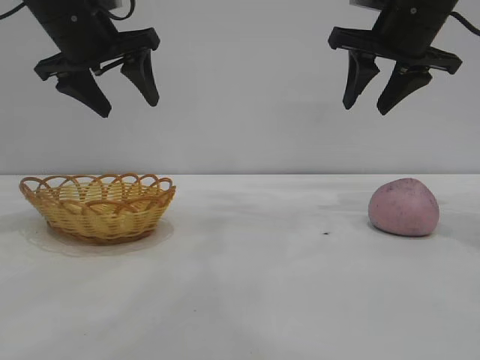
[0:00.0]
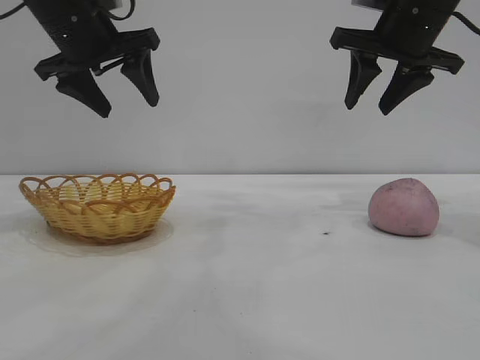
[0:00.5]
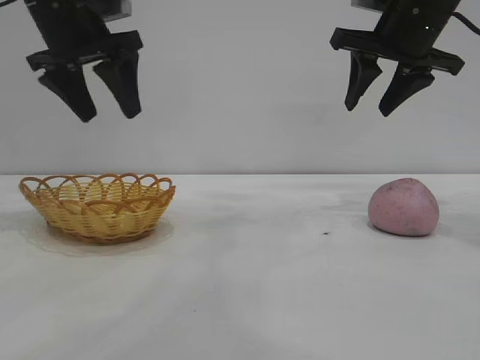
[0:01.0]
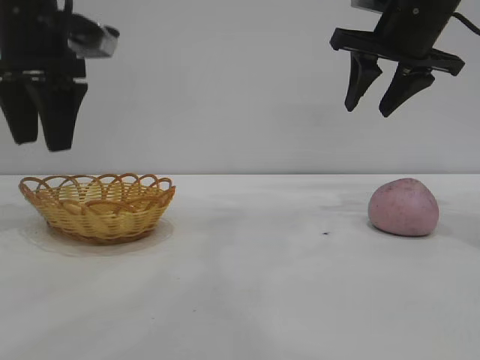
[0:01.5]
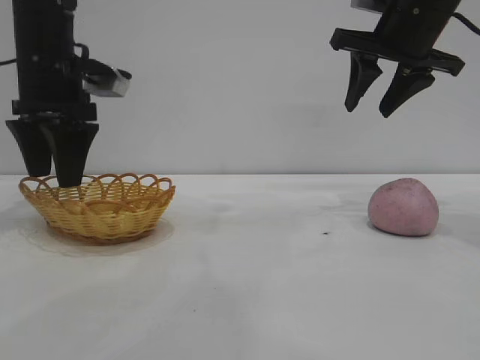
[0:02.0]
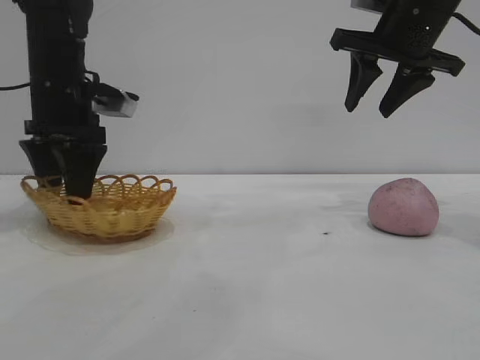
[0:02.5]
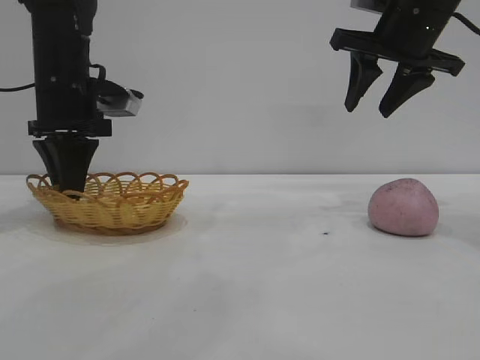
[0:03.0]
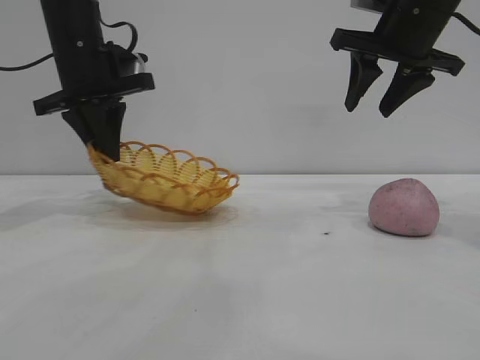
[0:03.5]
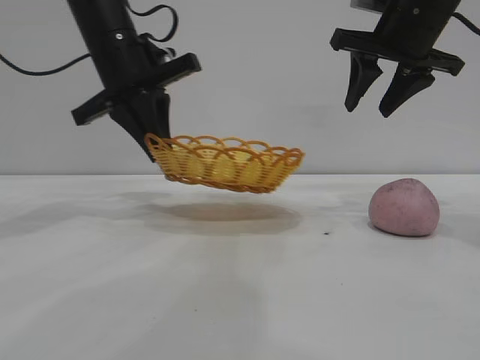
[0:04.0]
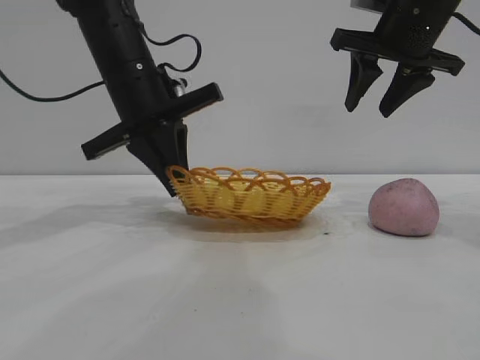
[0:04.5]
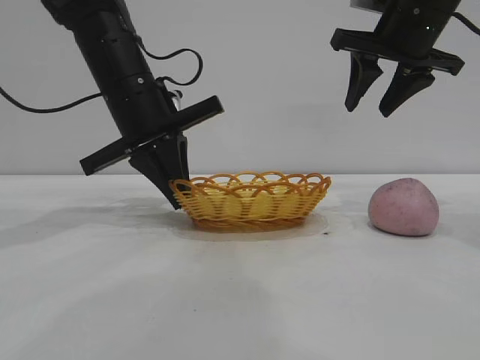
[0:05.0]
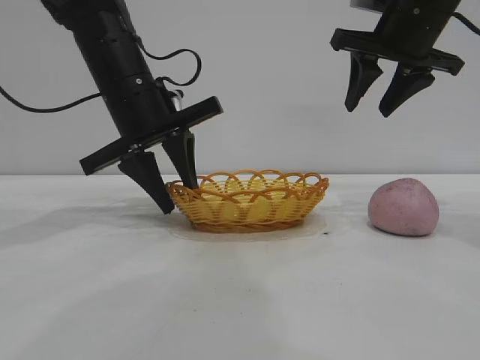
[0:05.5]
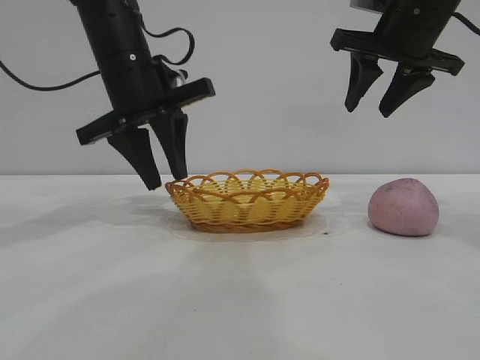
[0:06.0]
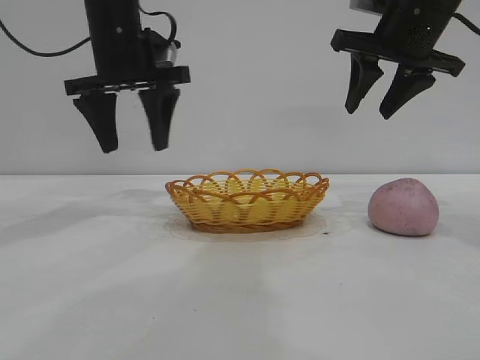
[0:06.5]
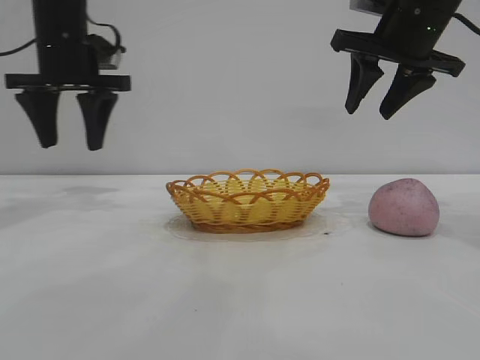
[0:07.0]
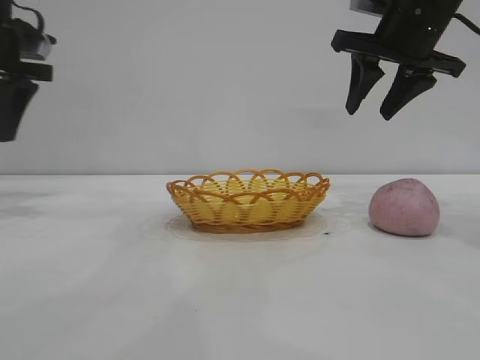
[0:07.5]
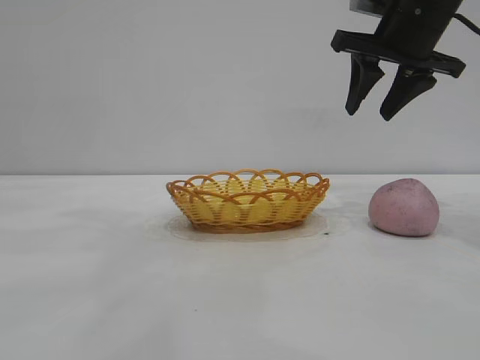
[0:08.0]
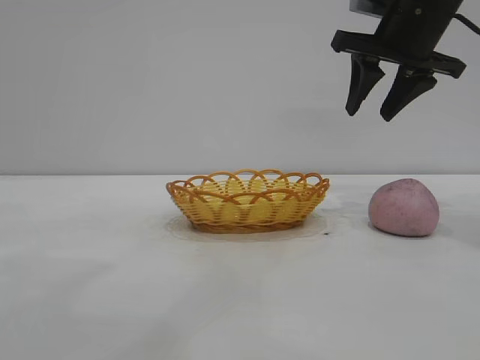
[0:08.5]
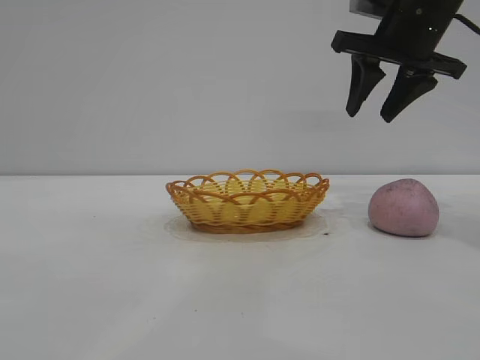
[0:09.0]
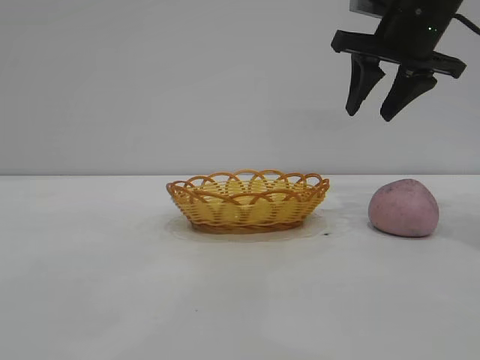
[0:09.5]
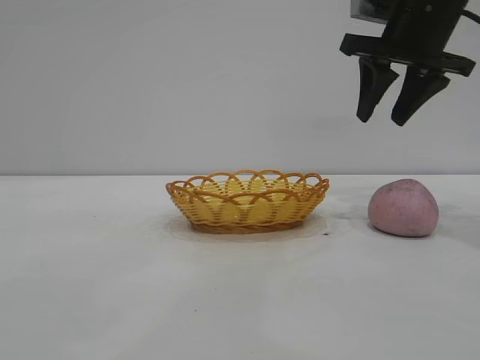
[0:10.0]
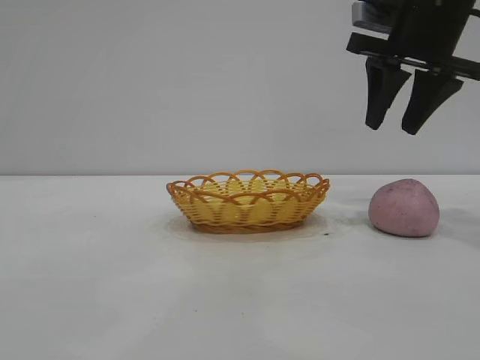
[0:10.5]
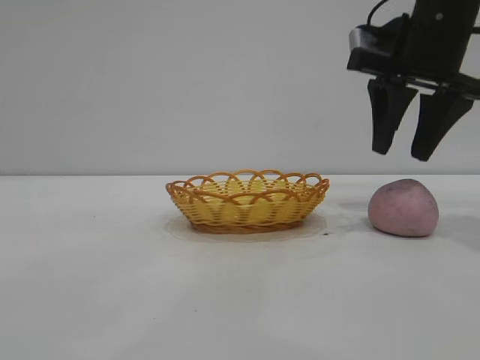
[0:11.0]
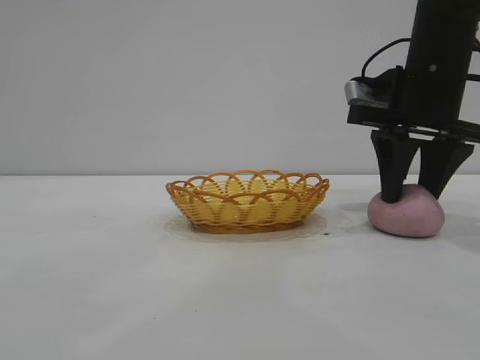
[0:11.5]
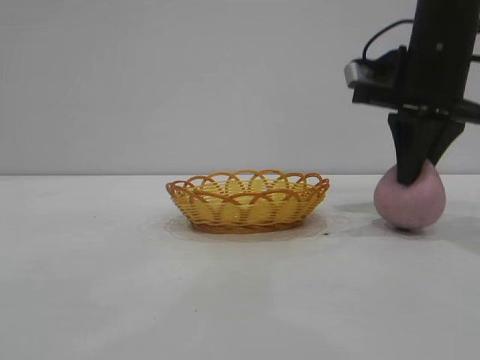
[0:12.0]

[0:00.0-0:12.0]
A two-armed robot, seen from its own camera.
Task of the whole recording: pick up the peach and put it into the basket.
Step, 0:00.0 to 0:06.5: Move the basket to the center of view.

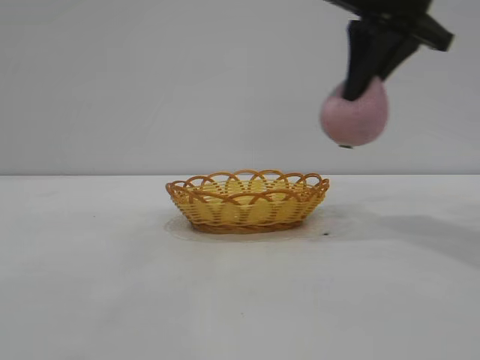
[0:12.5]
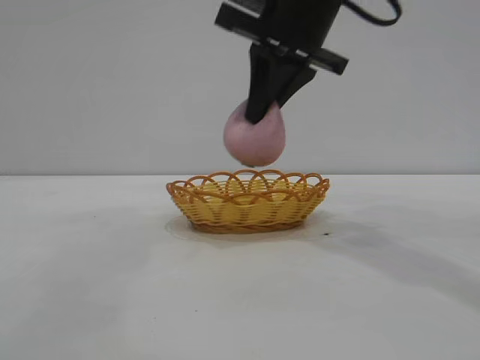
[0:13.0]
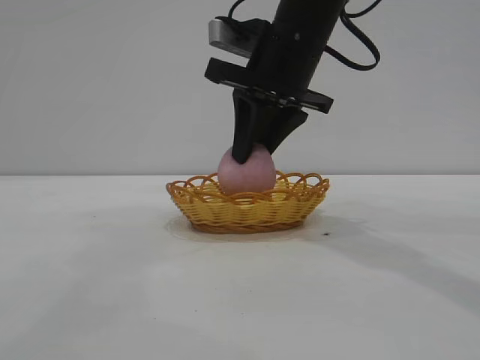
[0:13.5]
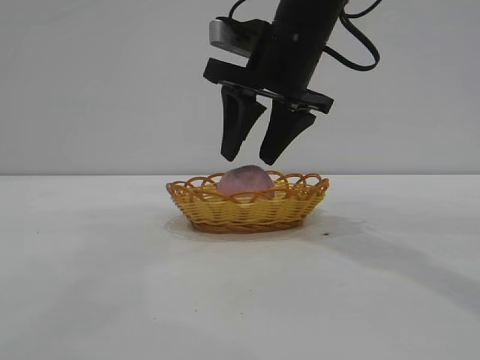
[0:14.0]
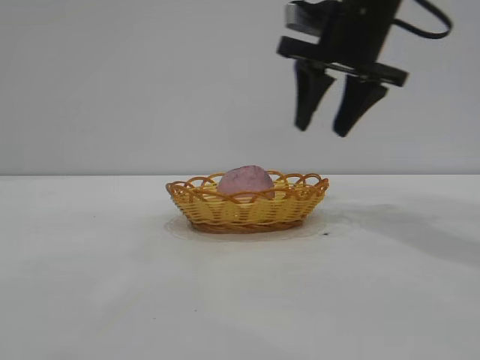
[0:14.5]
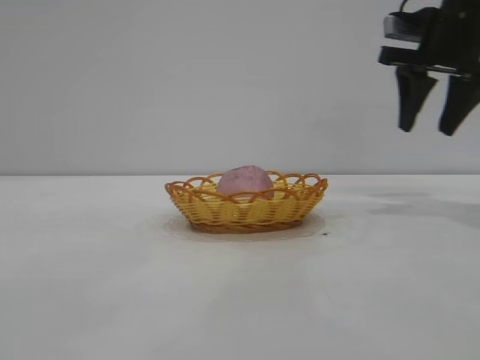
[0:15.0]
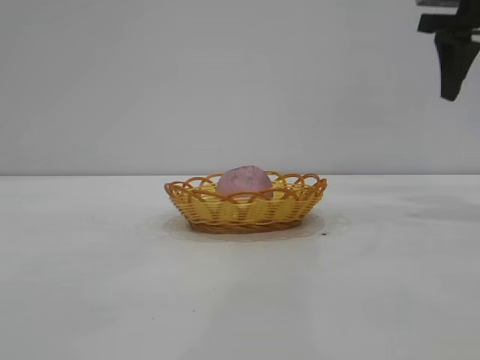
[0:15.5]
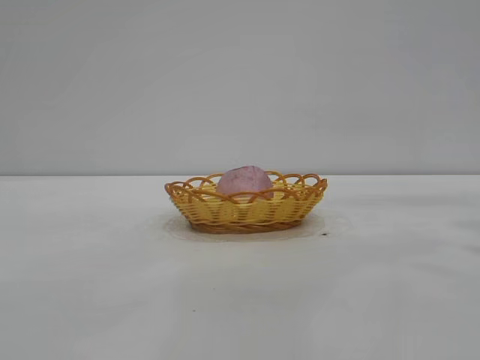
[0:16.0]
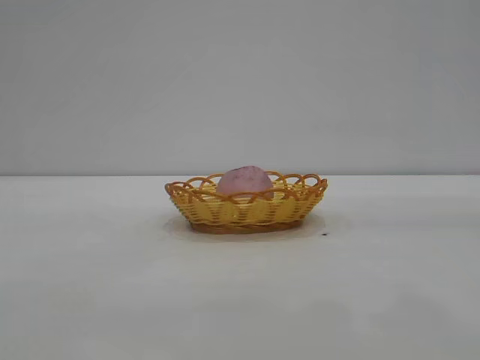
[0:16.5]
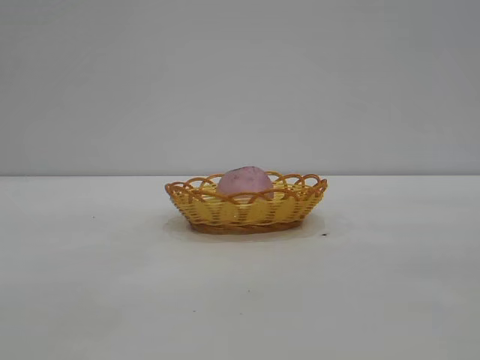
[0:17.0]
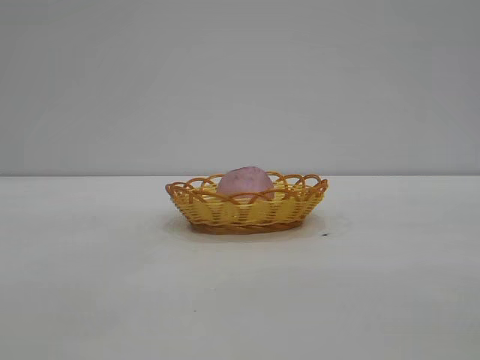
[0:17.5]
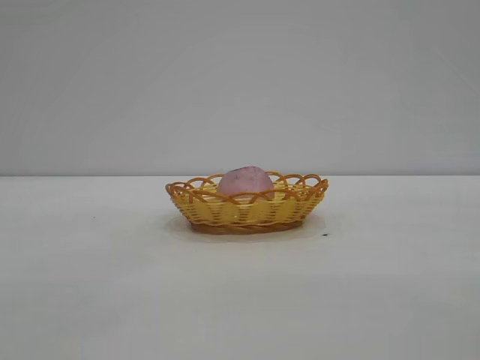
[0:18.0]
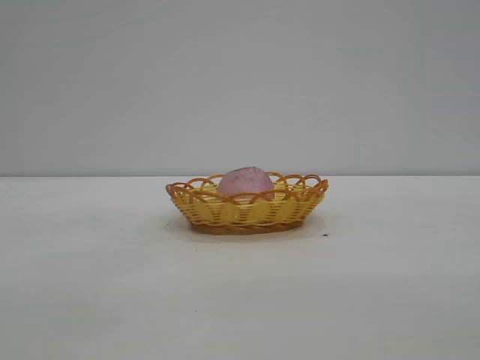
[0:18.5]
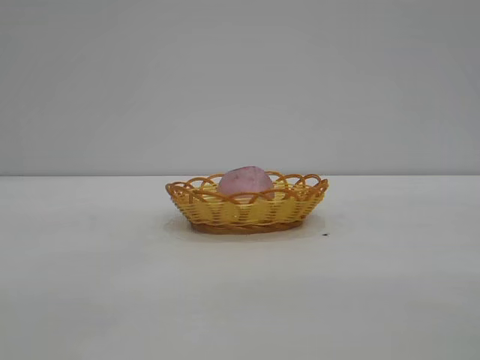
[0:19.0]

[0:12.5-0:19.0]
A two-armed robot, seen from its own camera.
Task of the whole recording: pick up the peach and put it into the basket.
Step, 0:12.5 to 0:14.5: place the peach into the basket.
